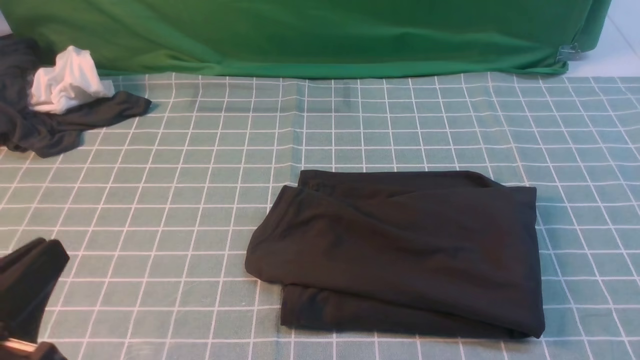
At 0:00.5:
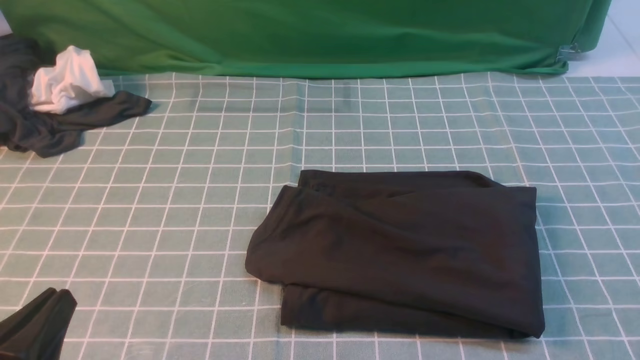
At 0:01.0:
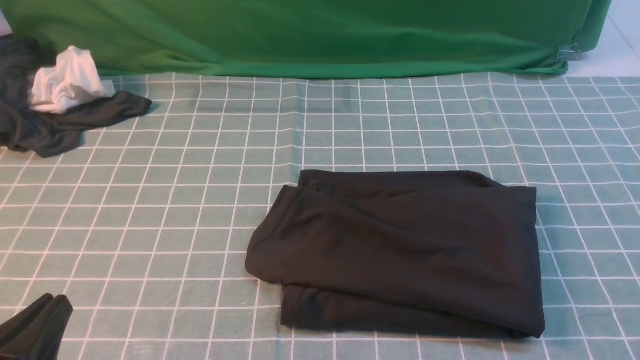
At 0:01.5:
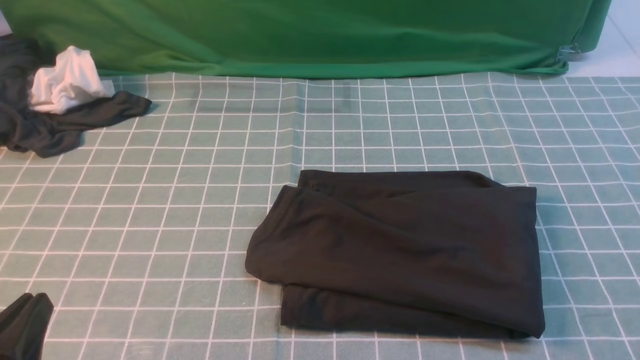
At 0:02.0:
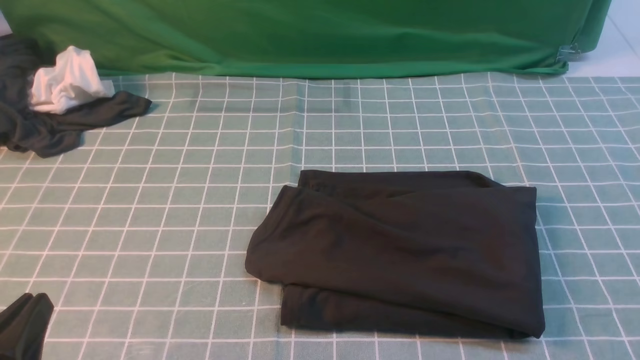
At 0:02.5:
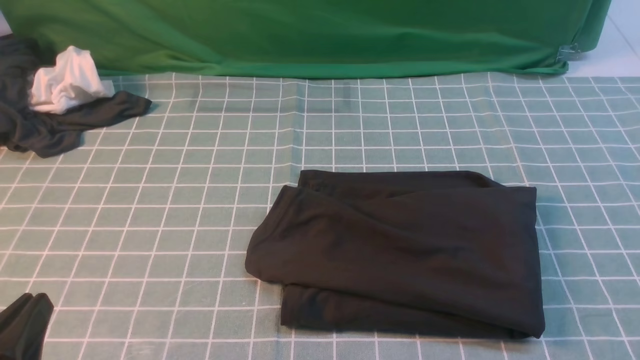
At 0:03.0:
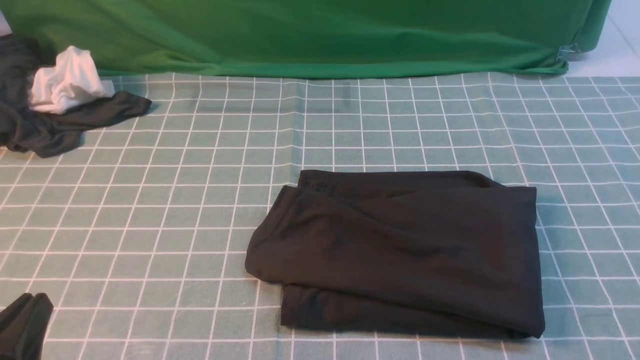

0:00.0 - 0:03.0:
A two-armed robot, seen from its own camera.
0:00.0 - 0:01.5: The left gripper is displaced downward by about 5 cm.
0:01.5 - 0:03.0: Both grippers stay put.
